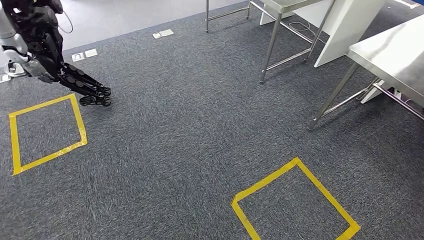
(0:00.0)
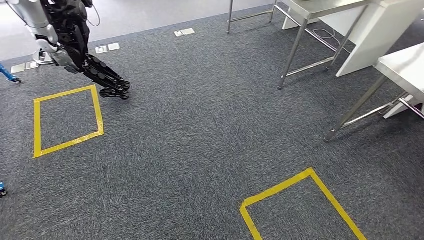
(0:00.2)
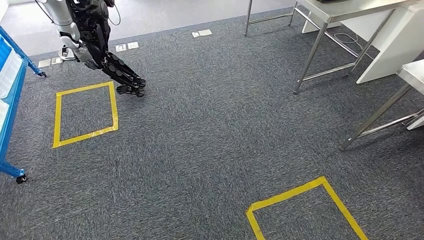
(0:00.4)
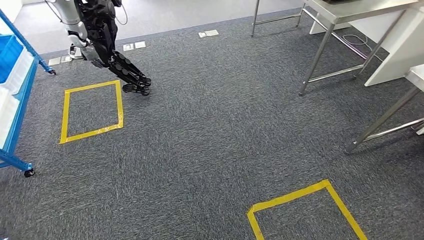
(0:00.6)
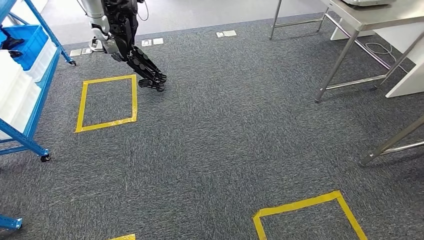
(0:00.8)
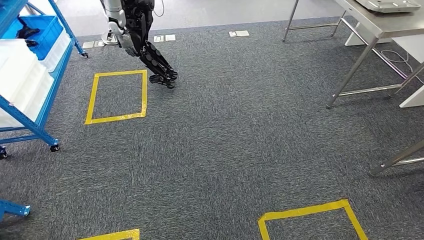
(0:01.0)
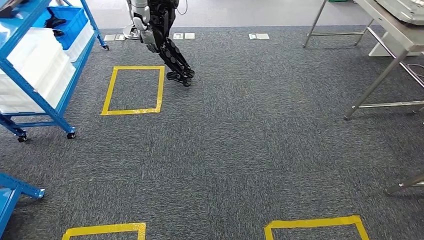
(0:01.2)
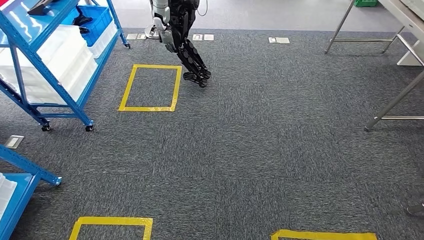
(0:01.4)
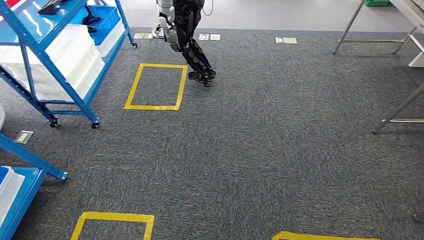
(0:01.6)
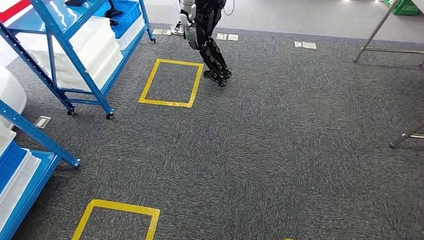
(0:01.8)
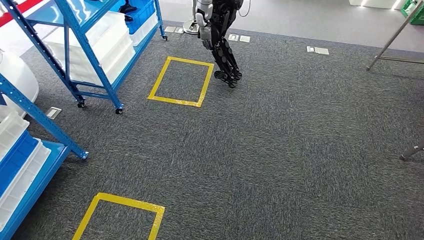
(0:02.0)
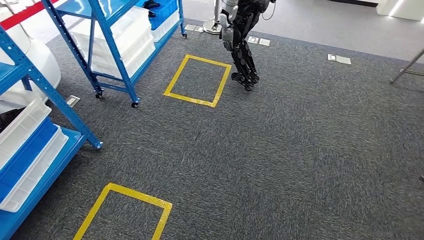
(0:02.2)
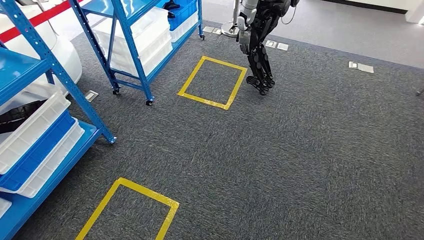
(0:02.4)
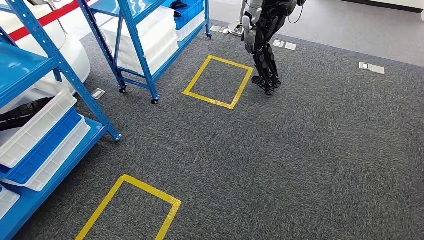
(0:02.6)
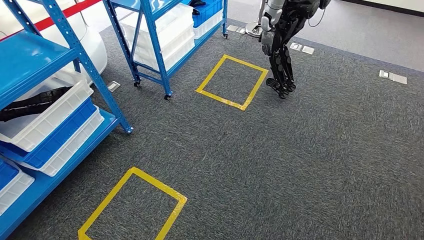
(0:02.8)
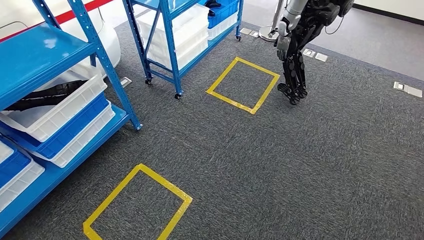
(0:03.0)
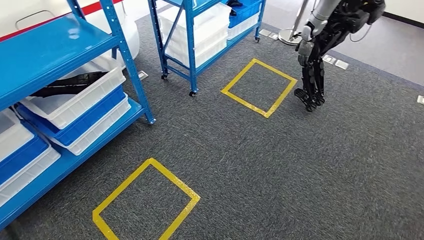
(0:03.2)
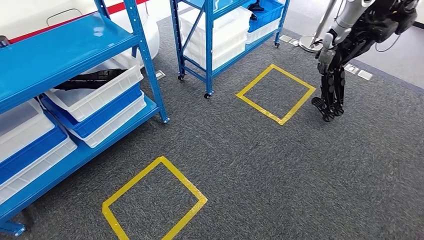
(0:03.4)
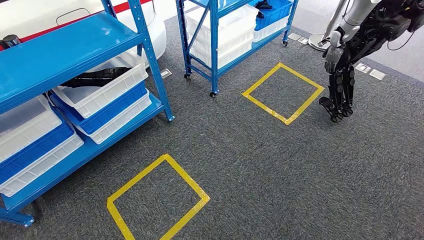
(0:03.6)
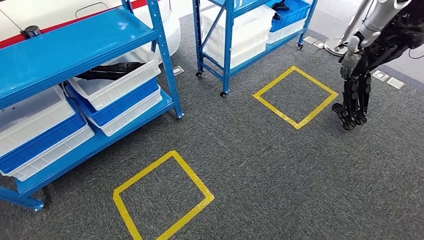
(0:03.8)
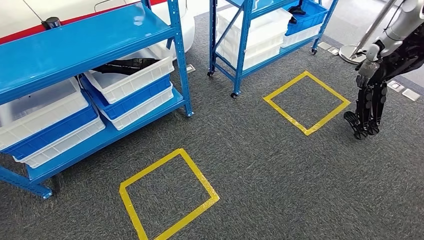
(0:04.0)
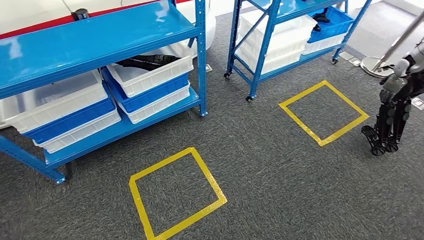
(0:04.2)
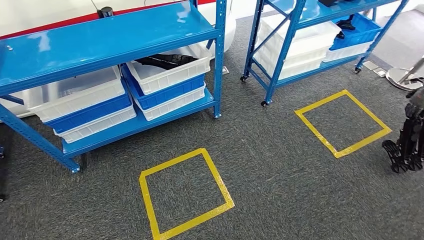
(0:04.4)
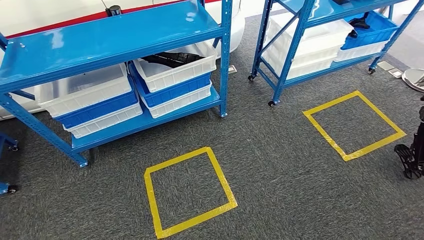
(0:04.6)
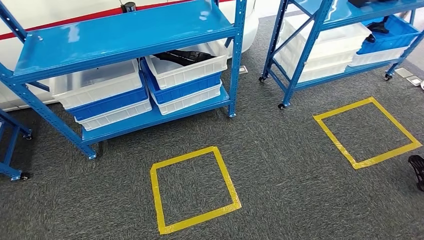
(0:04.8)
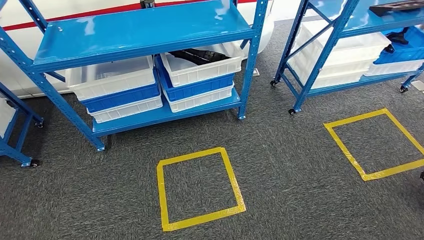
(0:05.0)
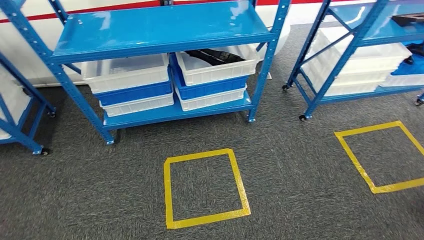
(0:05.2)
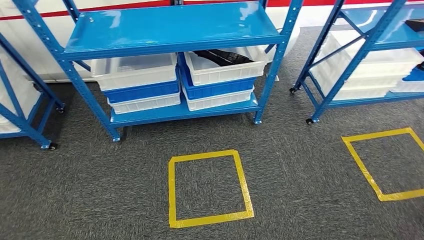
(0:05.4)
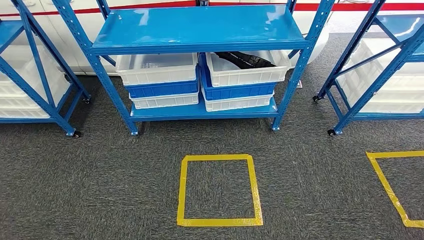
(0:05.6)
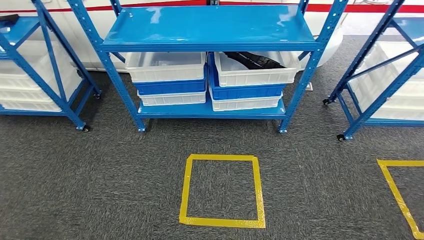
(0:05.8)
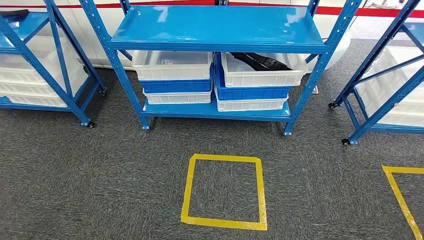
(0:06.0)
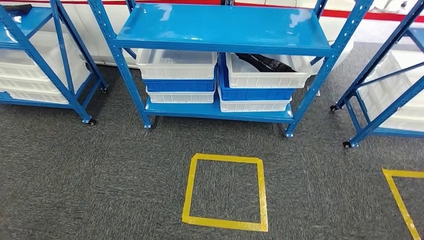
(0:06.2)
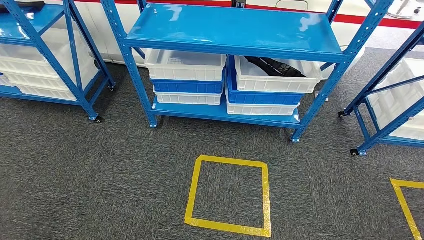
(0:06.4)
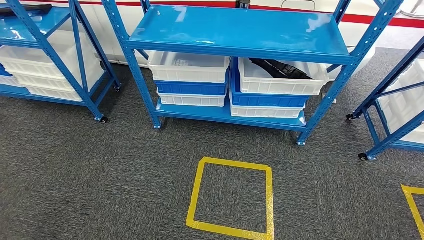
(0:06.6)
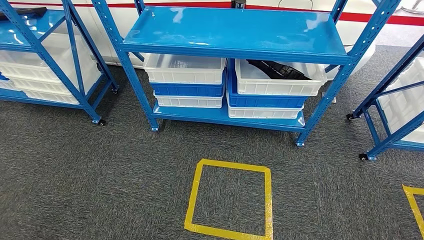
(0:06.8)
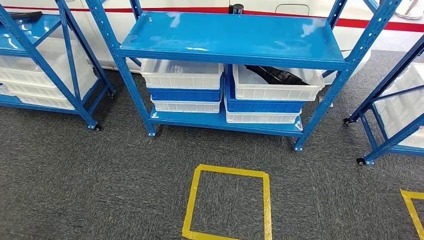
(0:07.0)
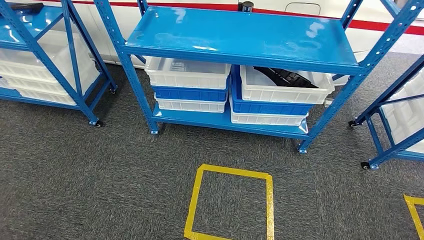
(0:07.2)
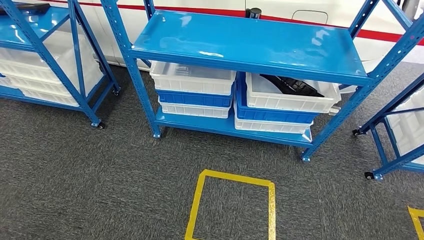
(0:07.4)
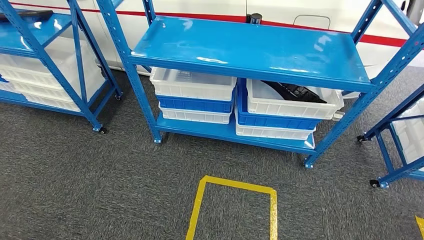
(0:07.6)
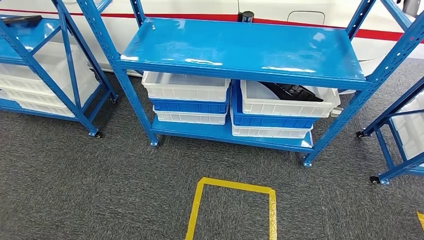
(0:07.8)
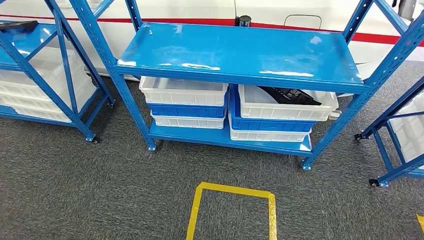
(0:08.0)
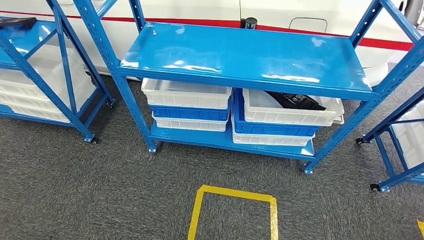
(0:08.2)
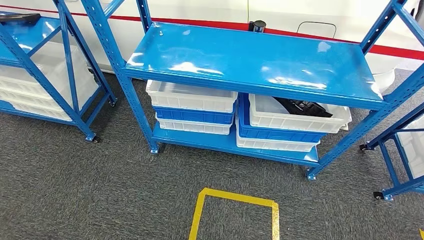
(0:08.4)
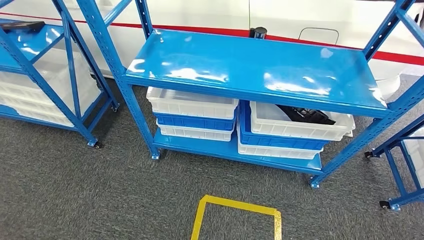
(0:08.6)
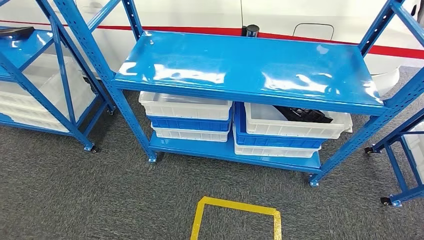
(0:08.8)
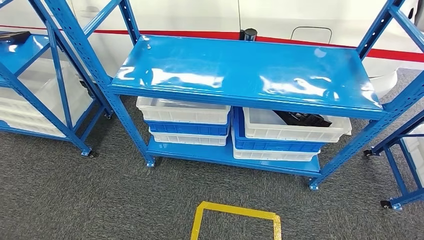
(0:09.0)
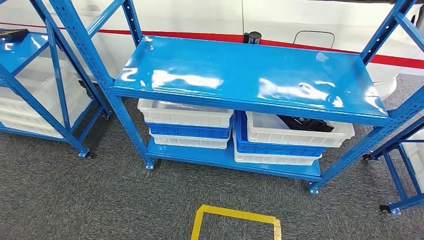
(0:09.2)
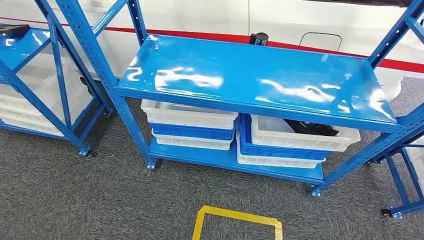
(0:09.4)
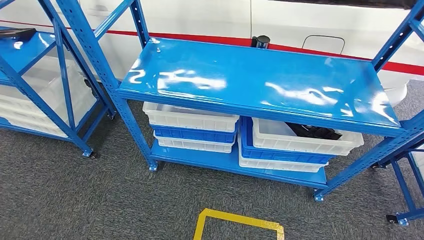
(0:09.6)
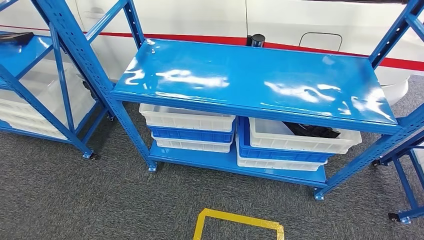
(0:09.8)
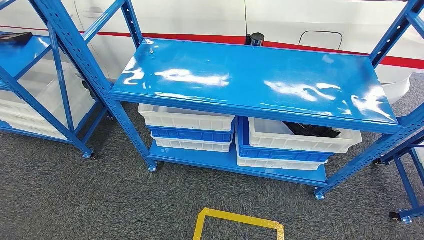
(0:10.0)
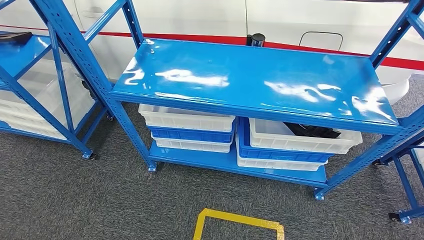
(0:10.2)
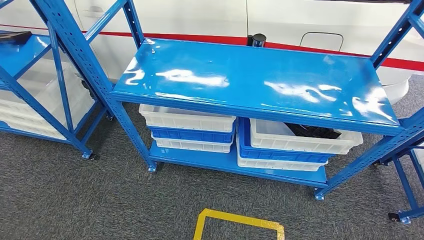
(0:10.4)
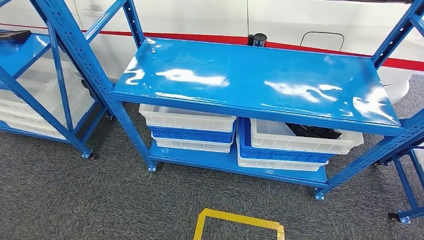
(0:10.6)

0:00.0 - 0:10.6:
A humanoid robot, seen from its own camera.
Step, 0:00.0 - 0:10.6: Return to the initial position at the shelf.
